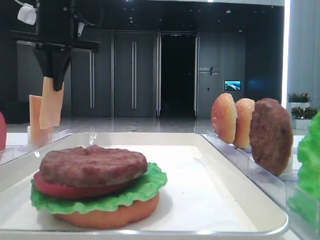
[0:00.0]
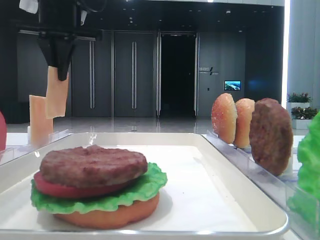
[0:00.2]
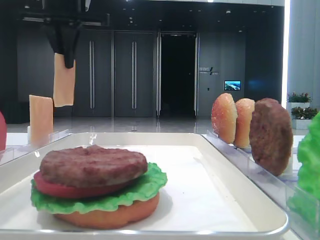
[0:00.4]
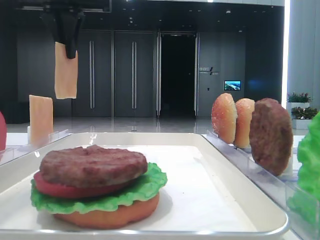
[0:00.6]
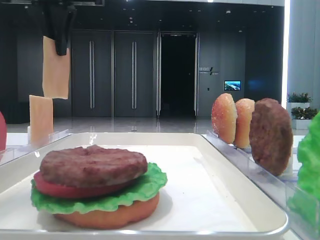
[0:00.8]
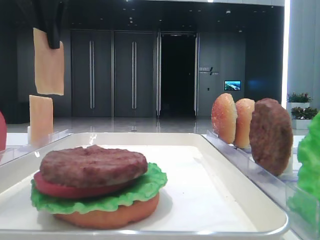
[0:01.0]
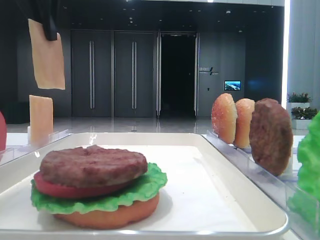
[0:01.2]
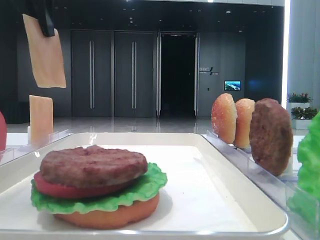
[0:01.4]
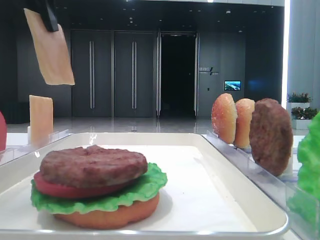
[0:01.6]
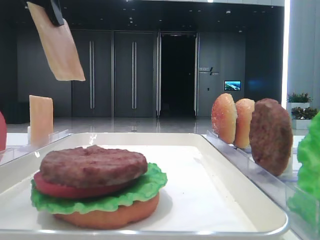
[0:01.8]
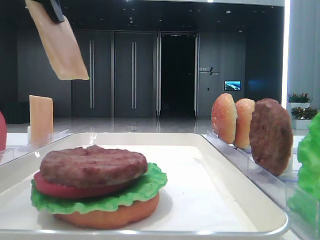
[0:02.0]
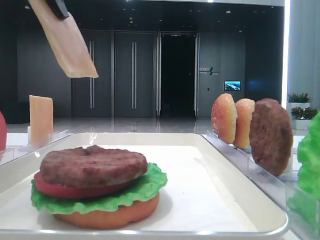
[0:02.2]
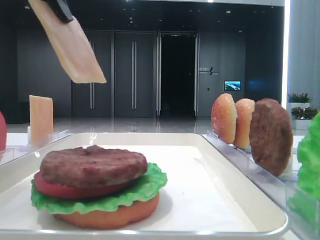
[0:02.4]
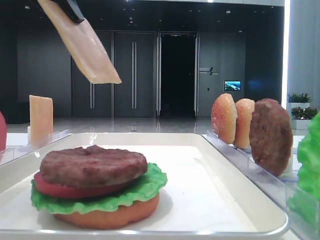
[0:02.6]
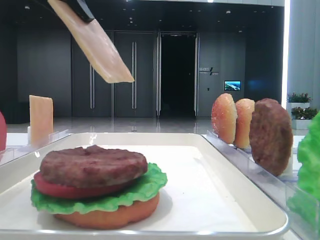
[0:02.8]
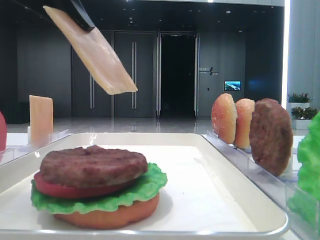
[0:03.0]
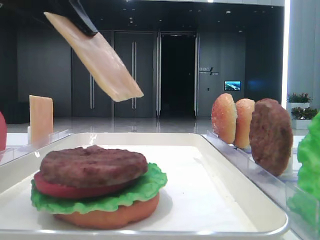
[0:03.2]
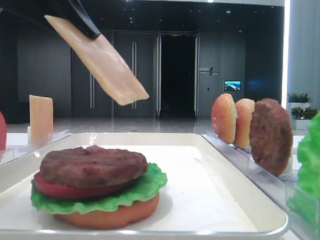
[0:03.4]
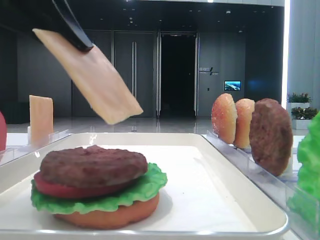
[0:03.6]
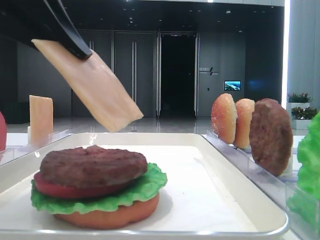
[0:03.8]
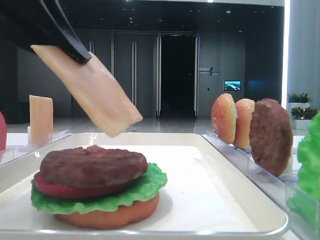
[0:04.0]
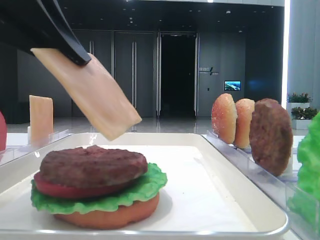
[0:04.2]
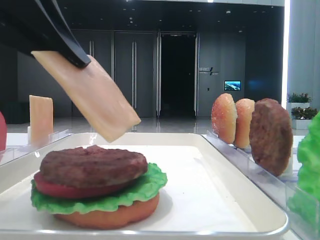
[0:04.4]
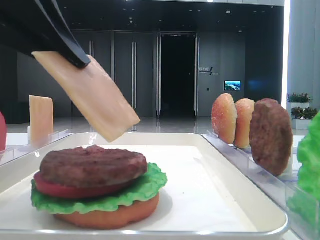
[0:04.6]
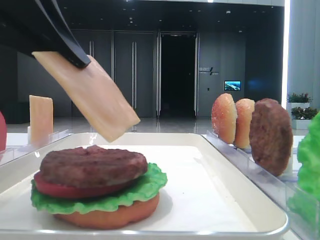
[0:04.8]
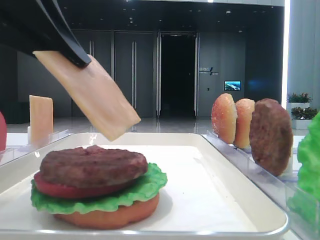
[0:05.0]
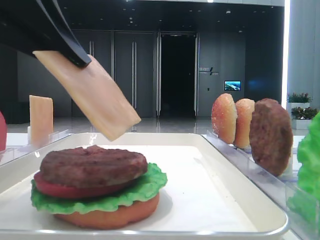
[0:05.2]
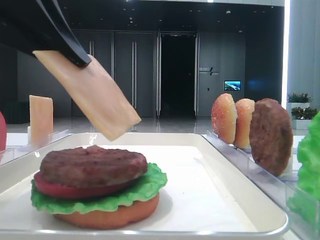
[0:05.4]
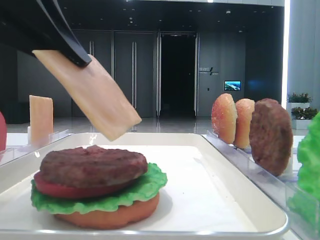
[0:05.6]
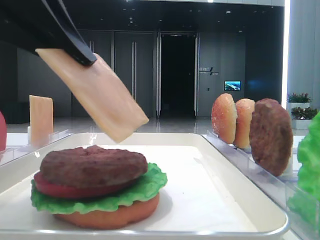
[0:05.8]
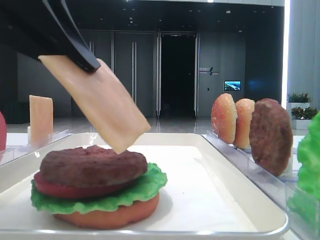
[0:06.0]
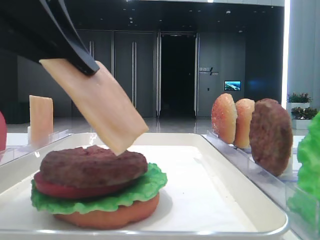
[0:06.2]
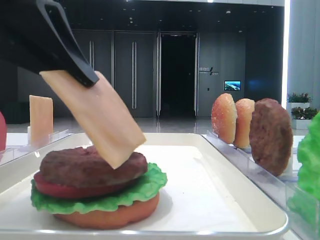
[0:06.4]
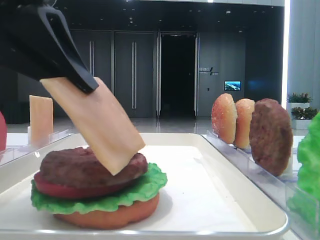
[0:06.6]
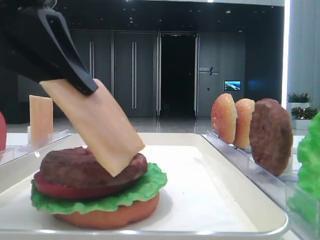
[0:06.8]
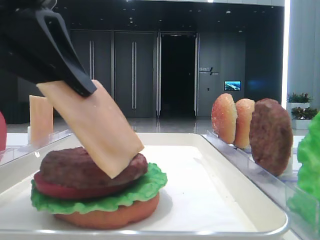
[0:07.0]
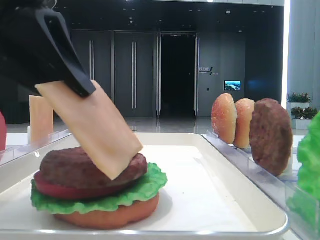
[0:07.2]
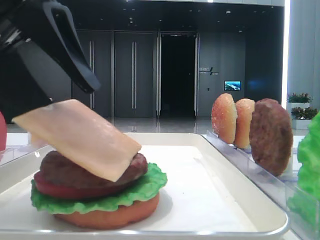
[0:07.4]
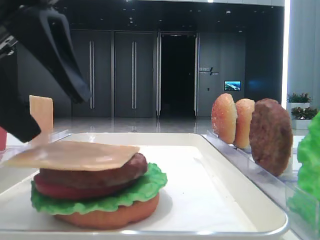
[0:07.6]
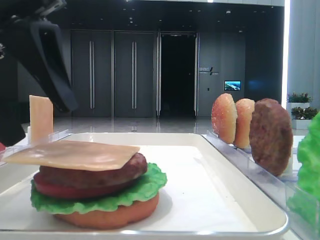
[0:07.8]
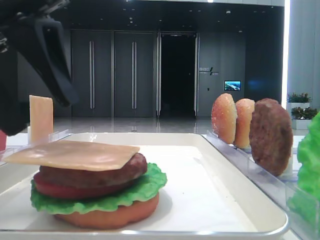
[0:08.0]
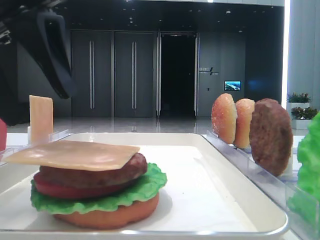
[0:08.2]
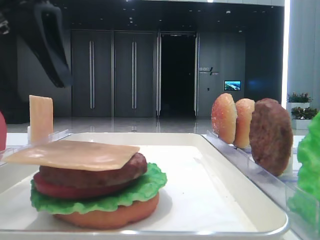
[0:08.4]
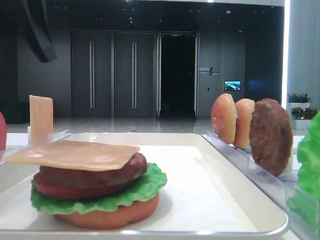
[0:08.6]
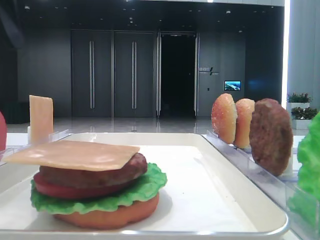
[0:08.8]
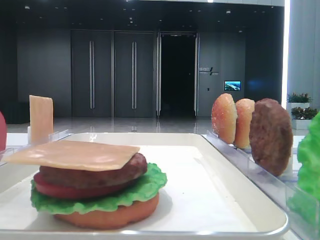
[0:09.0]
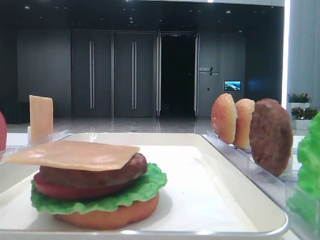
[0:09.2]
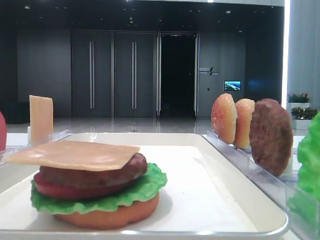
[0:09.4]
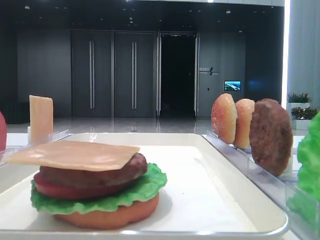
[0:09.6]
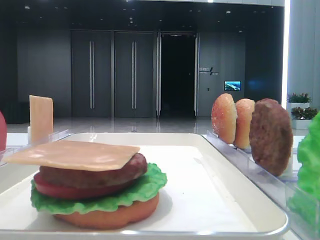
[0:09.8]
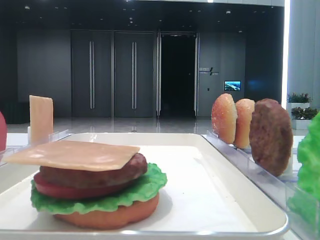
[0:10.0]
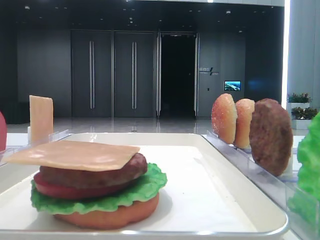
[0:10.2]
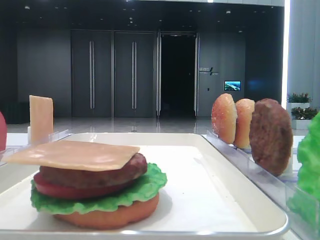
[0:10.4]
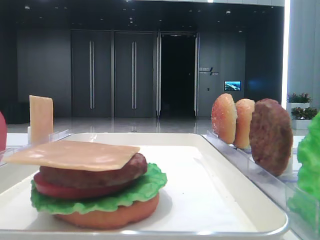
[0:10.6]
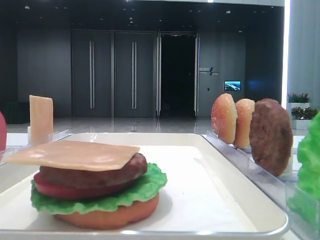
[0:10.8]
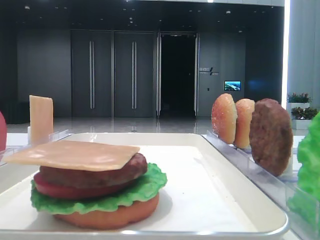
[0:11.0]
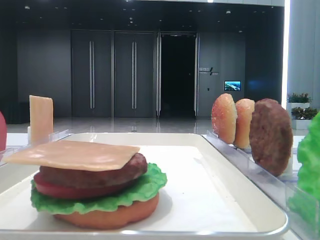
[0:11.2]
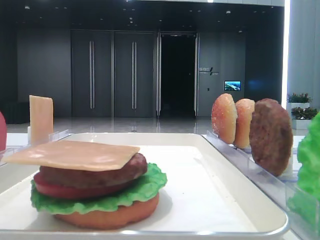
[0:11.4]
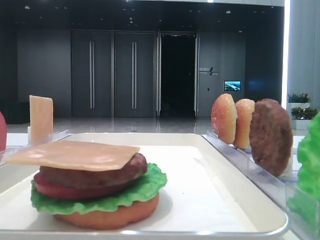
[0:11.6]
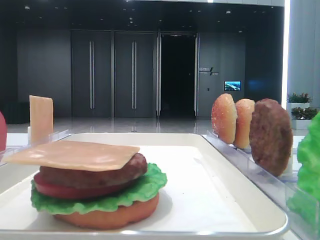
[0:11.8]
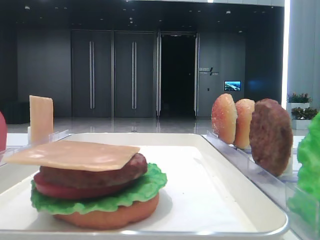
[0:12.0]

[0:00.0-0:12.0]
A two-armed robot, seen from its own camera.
Step, 0:00.0 to 0:07.4: Place the cheese slice on the patty with the left hand.
0:00.0 to 0:01.6: The left gripper shifts roughly 15 cm backward and upward.
0:01.6 to 0:03.0: The left gripper travels backward by about 5 cm.
0:03.0 to 0:04.4: The left gripper changes place by approximately 5 cm.
0:04.4 to 0:06.0: Both grippers stay put.
0:06.0 to 0:07.6: The left gripper opens.
0:07.6 to 0:09.0: The left gripper shifts roughly 10 cm upward and to the left.
0:09.0 to 0:10.4: The left gripper travels to the left by roughly 5 cm.

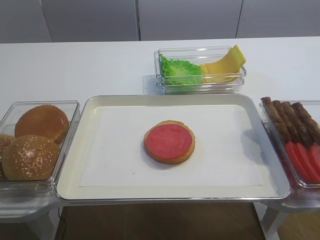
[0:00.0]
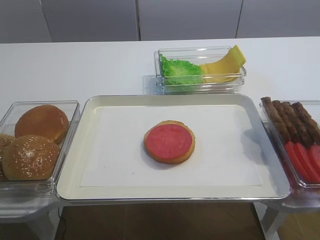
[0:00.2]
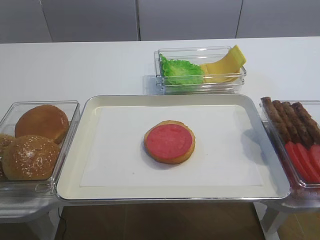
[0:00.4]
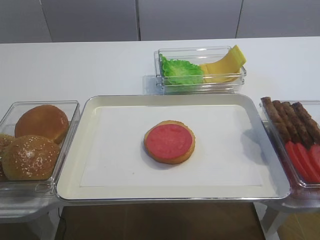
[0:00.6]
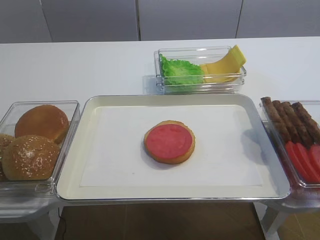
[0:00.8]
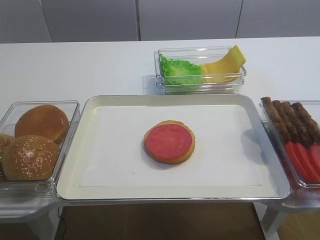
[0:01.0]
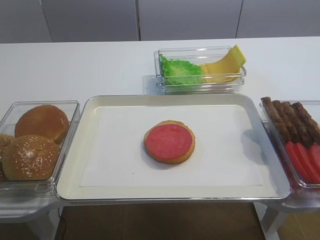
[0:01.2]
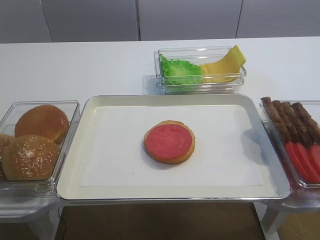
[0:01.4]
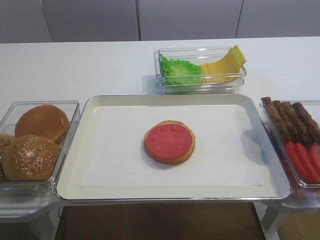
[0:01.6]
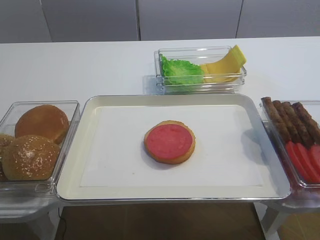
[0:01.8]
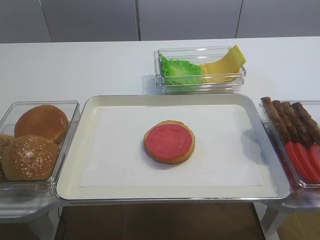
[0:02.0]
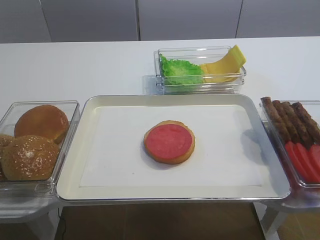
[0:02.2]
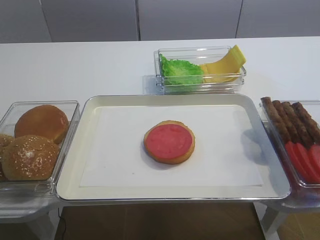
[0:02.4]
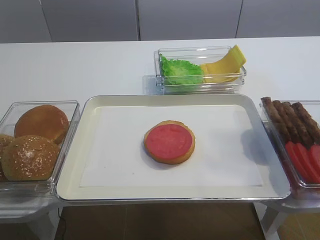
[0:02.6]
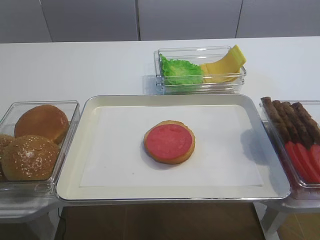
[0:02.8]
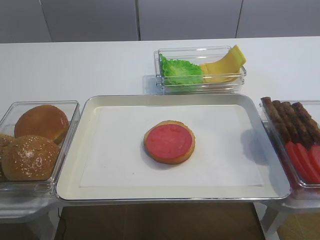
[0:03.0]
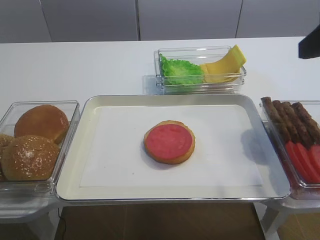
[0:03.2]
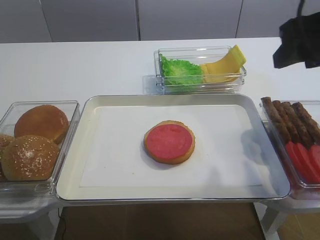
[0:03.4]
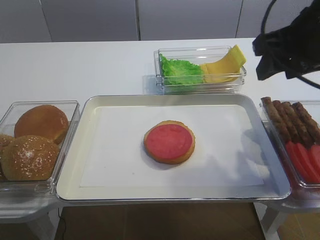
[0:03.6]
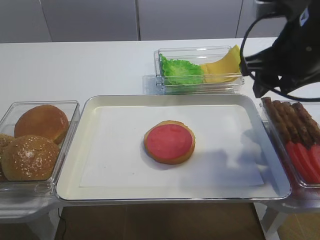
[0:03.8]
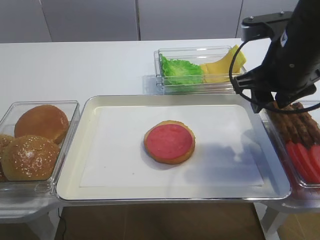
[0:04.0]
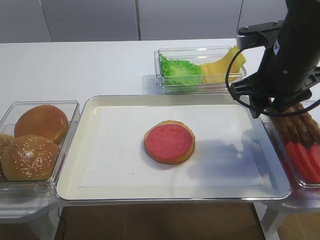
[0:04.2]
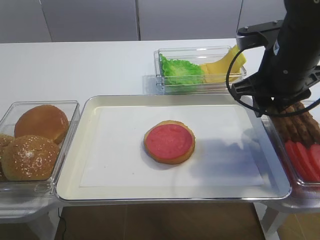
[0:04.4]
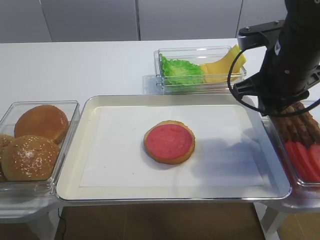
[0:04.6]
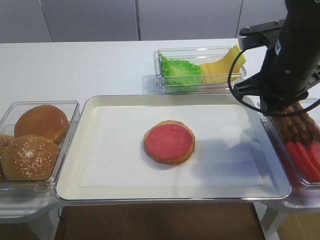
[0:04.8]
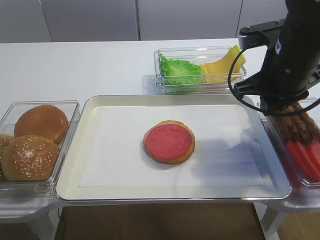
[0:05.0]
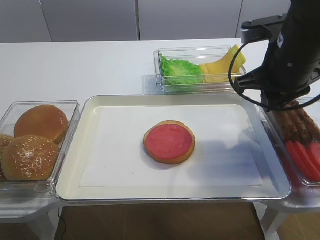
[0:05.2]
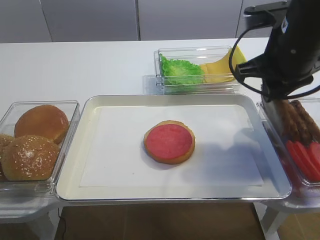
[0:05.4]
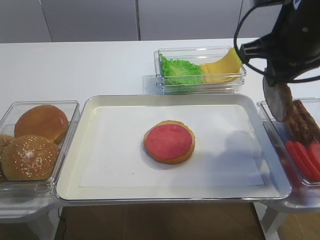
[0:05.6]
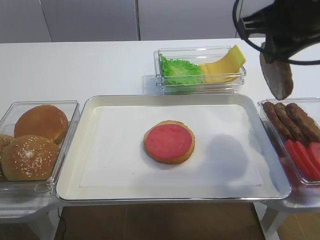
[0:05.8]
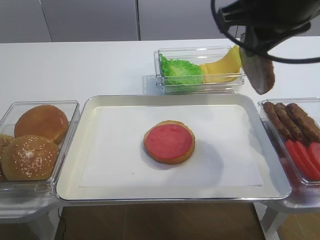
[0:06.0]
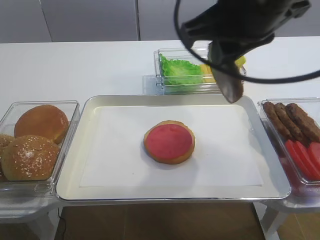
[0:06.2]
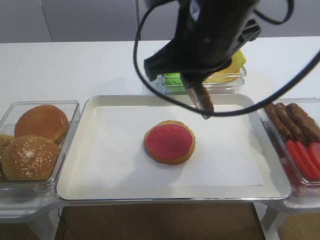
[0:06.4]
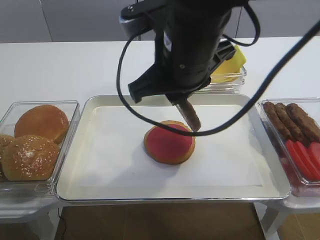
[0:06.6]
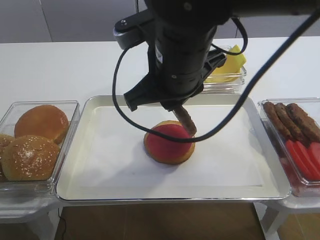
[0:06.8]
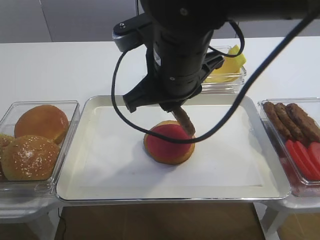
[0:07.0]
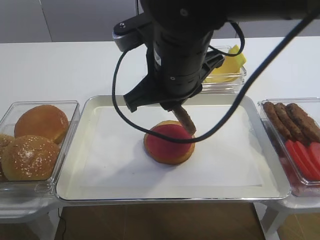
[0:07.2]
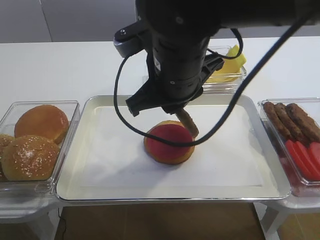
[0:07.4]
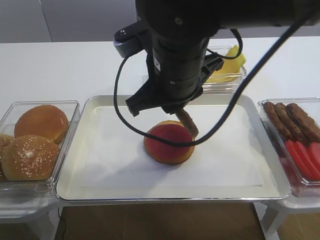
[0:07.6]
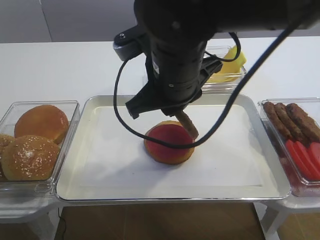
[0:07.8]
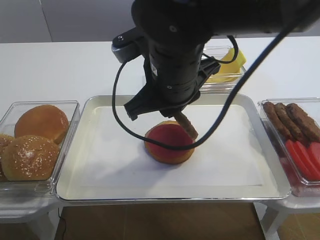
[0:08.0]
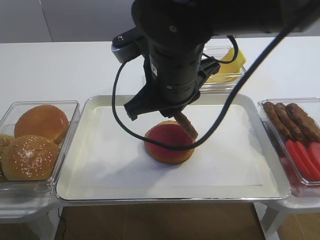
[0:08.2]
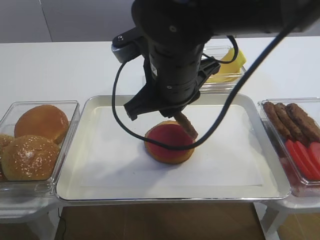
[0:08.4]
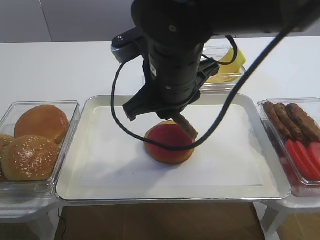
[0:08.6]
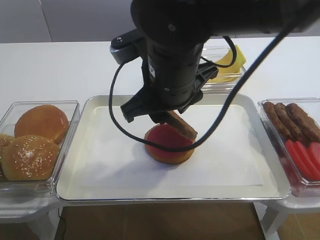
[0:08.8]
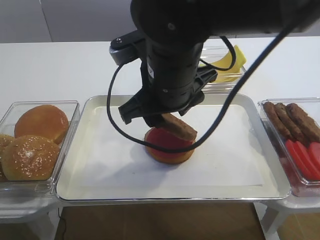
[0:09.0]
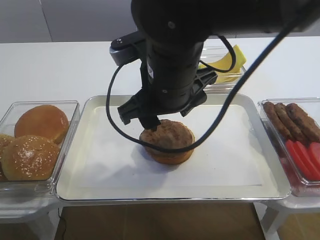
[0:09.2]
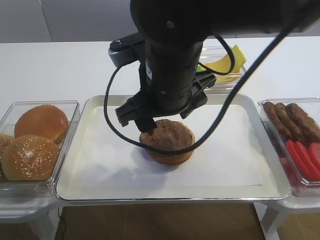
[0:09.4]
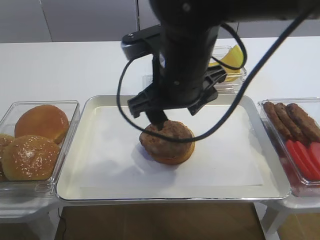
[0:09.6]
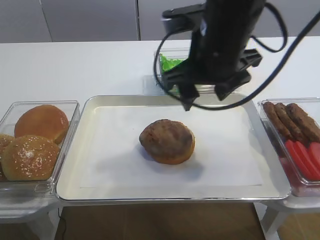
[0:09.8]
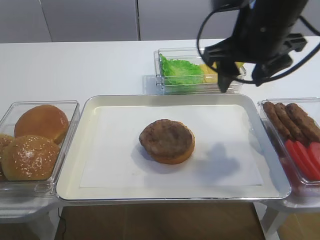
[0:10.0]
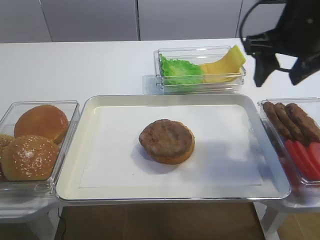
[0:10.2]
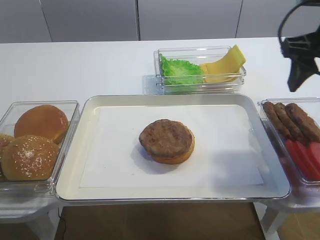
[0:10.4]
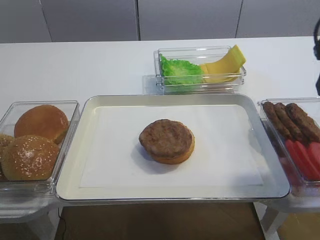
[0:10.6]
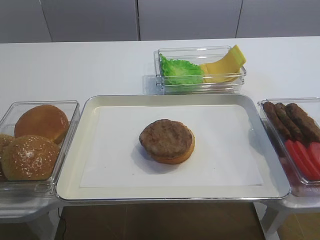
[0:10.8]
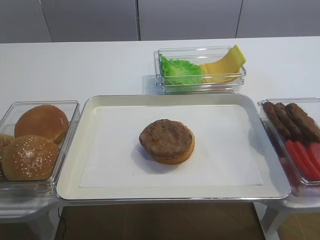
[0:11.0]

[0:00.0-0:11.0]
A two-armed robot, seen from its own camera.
Step, 0:00.0 to 0:05.4: Pick up the cutlet with the right gripper.
Step, 0:05.6 to 0:09.4: Place the cutlet on the tomato slice with the right gripper.
0:01.6 to 0:03.2: The right gripper travels forward by some 20 cm.
0:03.2 to 0:04.8: The right gripper travels downward, forward and to the left by about 15 cm, and closes.
0:04.8 to 0:06.2: The right gripper shifts roughly 15 cm upward, to the left and backward.
0:06.2 to 0:07.8: The right gripper is displaced downward and to the left by about 10 cm.
0:07.8 to 0:09.4: The right gripper opens.
0:09.4 to 0:11.0: The right gripper shifts about 25 cm to the right.
